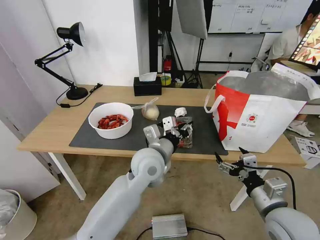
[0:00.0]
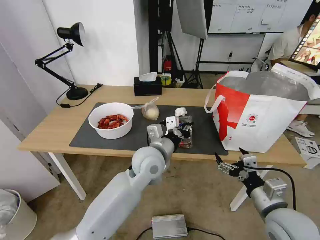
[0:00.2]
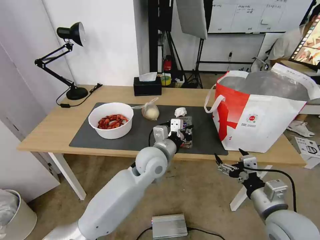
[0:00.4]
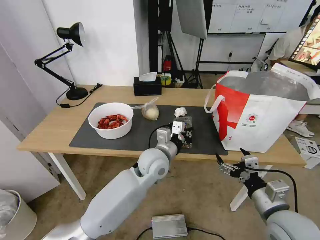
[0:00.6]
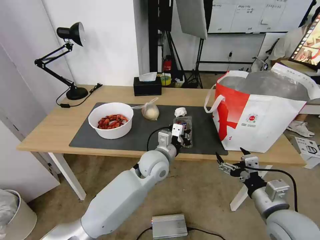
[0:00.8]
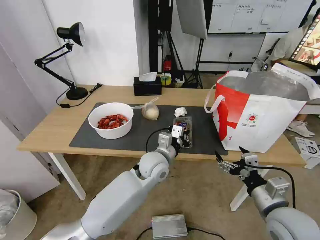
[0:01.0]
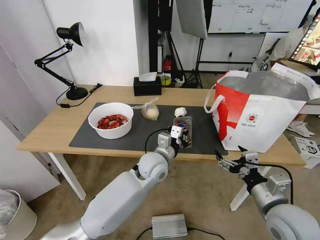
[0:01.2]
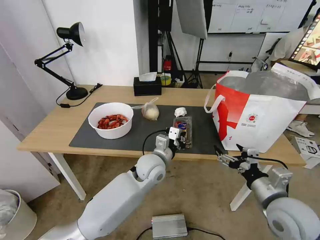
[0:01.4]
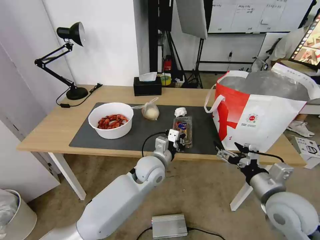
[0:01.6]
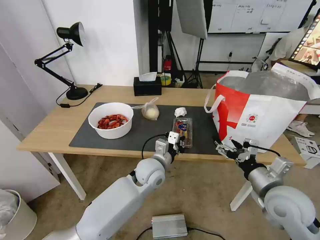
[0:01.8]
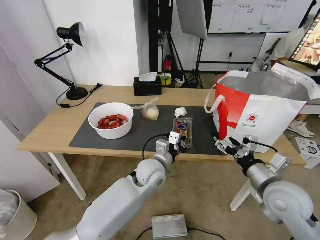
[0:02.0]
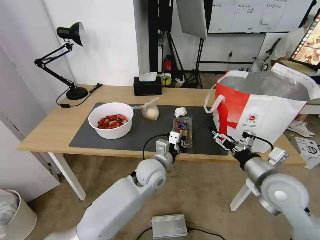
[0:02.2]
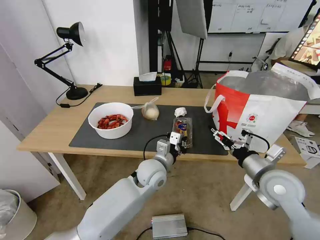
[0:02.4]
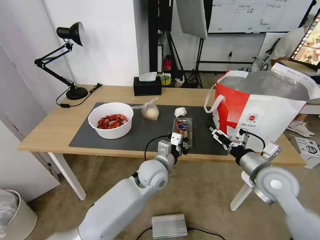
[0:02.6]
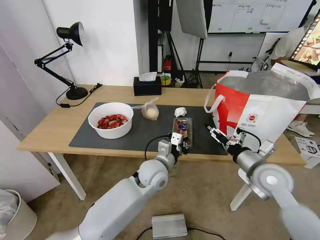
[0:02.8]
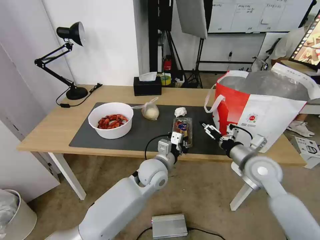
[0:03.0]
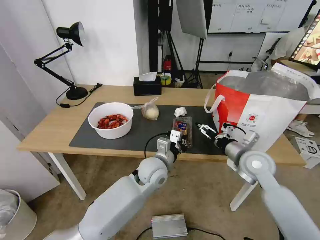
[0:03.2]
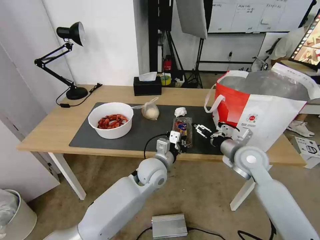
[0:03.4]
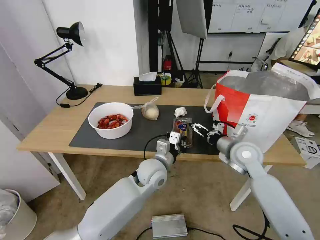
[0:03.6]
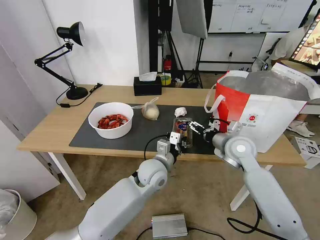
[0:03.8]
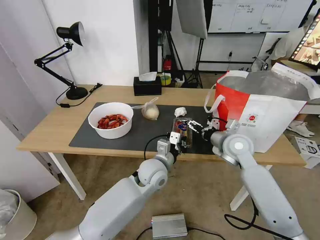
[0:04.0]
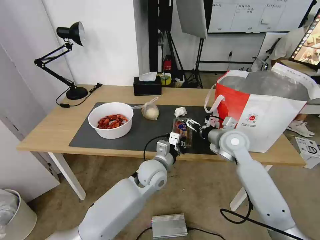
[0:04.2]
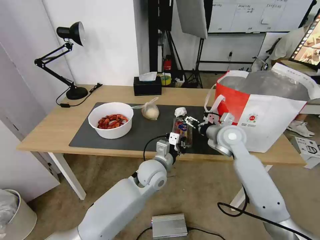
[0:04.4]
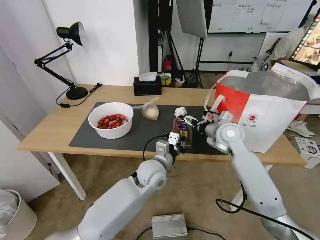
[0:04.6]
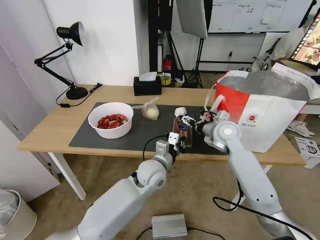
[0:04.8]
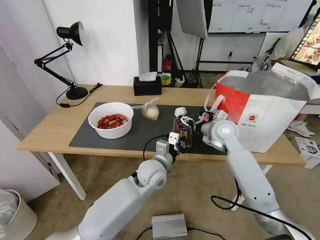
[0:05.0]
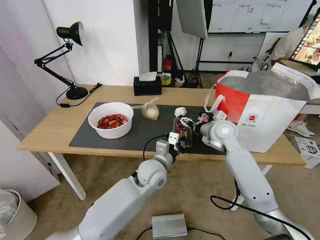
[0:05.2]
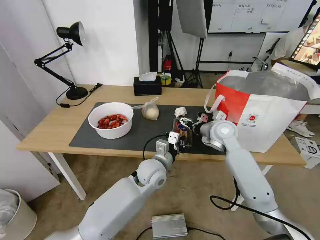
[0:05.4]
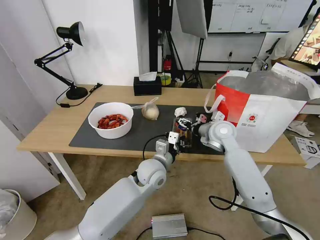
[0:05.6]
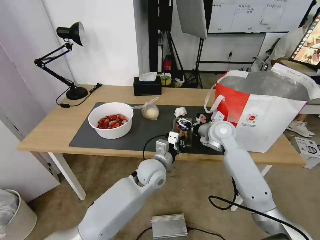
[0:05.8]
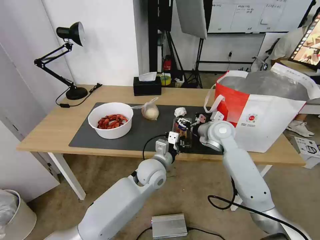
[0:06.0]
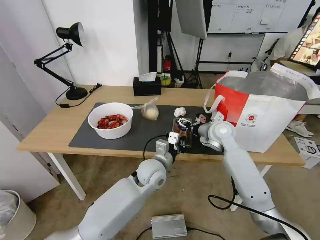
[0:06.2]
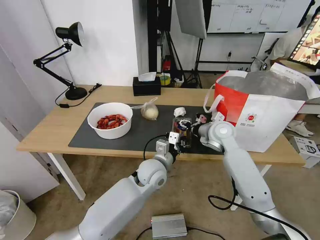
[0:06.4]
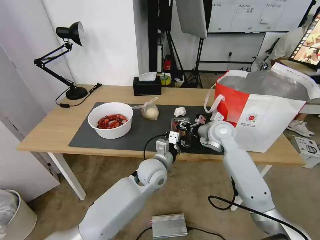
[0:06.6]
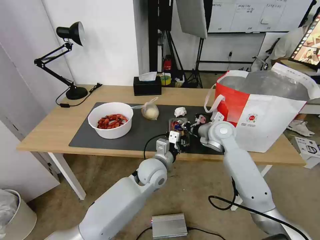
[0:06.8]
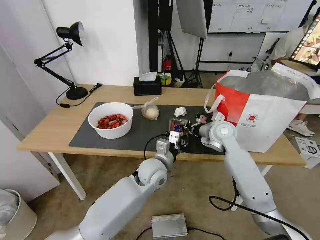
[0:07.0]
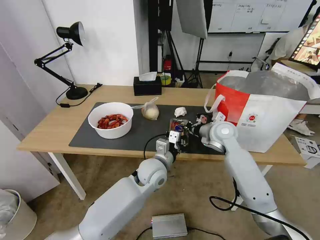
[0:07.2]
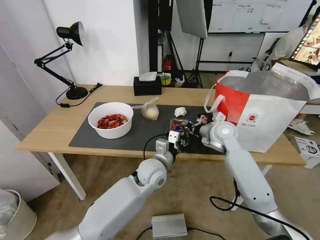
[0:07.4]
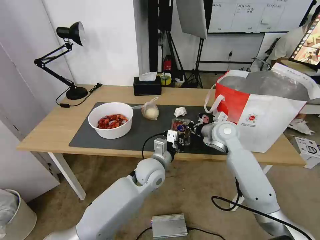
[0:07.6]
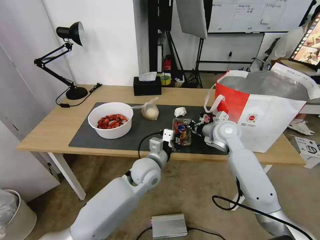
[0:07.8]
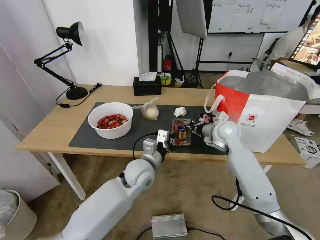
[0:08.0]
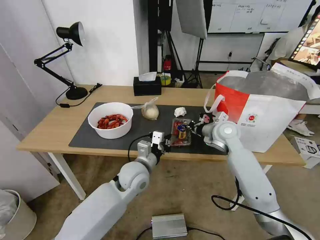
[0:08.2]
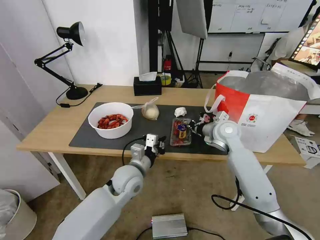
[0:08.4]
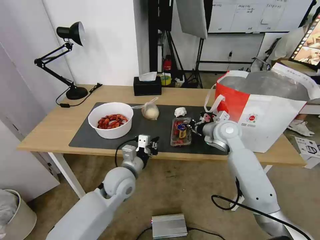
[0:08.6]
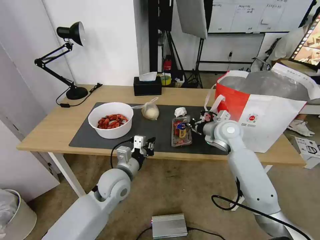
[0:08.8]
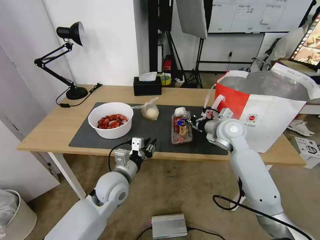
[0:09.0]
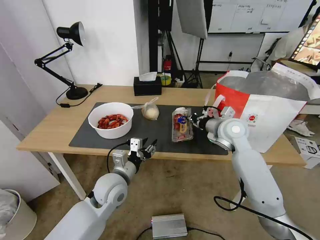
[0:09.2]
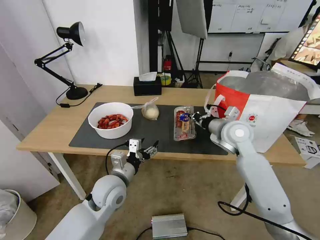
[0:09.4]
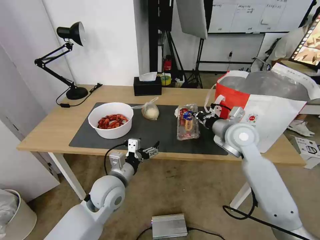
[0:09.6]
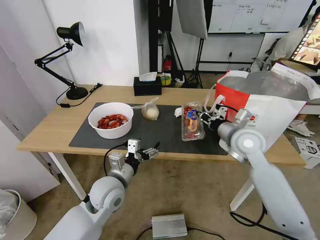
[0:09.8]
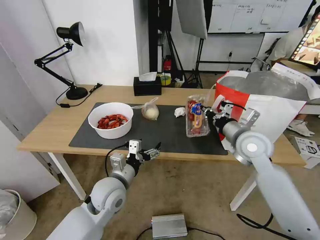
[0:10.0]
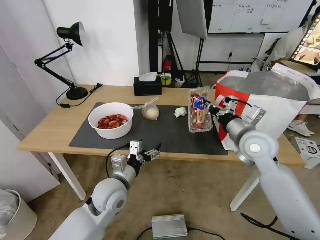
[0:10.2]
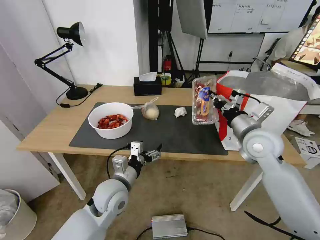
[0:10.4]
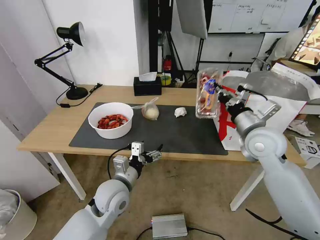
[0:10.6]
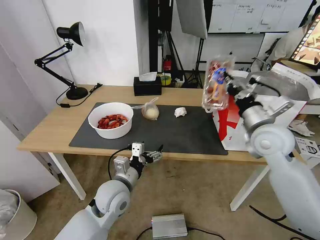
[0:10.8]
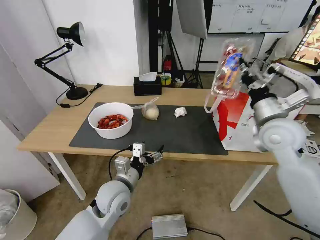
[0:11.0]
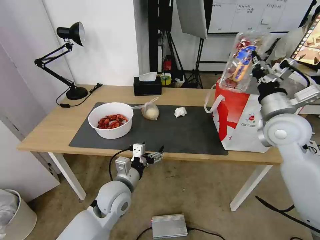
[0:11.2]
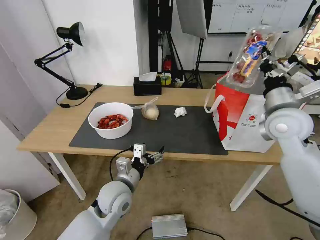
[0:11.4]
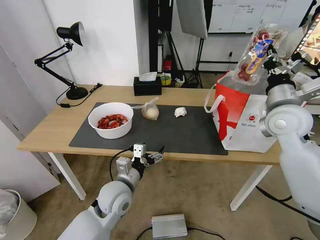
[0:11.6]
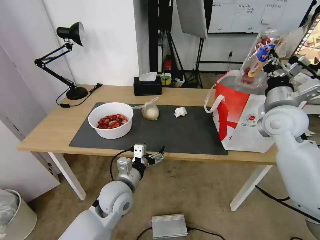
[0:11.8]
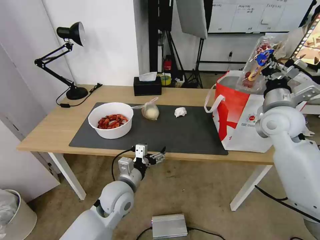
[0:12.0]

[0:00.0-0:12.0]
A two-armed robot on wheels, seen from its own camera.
Task of the whole recording: Pick up the trash from the table and place it into the takeout bag.
0:00.0 to 0:01.6: The left gripper shifts about 10 cm downward, and closes up.
0:01.6 to 0:03.0: The right gripper shifts about 10 cm forward.
0:03.0 to 0:04.4: The right gripper is displaced forward and to the left by about 15 cm.
0:04.4 to 0:06.0: The grippers move only a little.
0:06.0 to 0:07.6: The right gripper closes up.
0:07.6 to 0:09.0: The left gripper shifts about 10 cm to the left.
0:09.0 to 0:10.4: The right gripper is displaced backward by approximately 10 cm; the left gripper opens its fingers.
0:10.4 to 0:12.0: The right gripper heads to the right, covering roughly 5 cm.

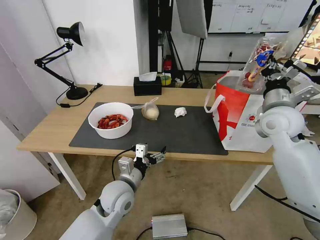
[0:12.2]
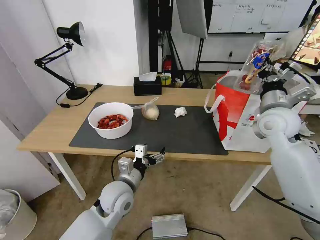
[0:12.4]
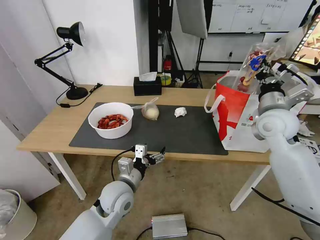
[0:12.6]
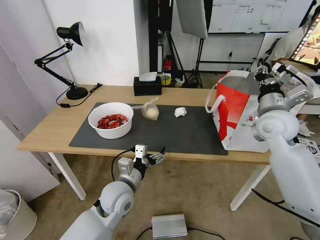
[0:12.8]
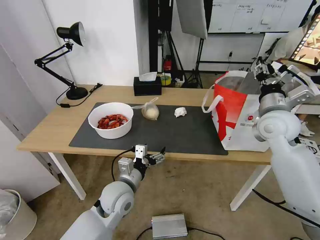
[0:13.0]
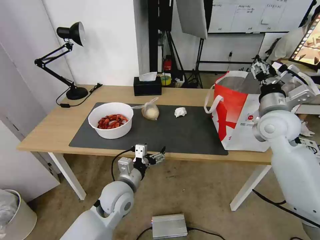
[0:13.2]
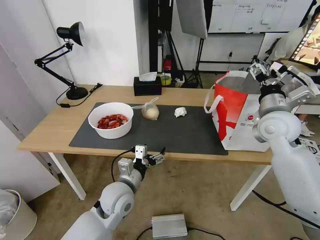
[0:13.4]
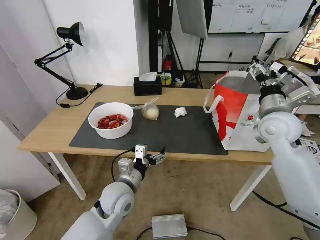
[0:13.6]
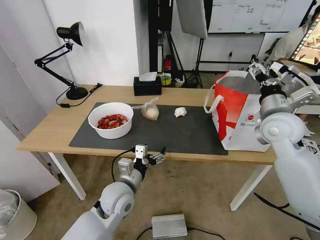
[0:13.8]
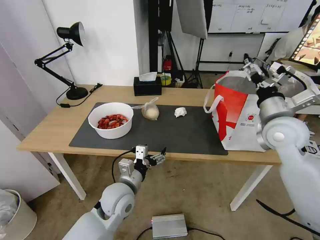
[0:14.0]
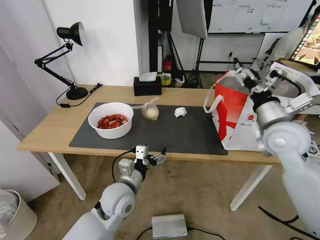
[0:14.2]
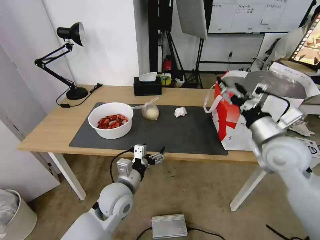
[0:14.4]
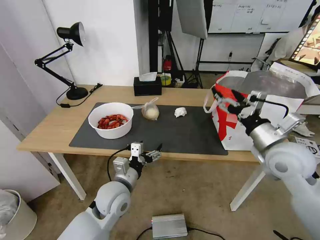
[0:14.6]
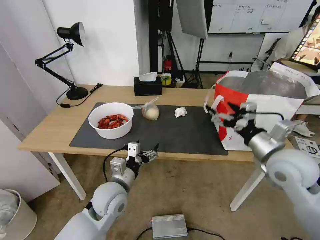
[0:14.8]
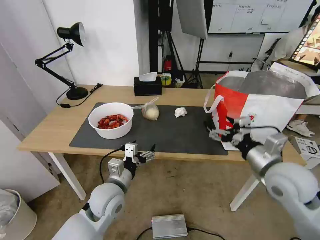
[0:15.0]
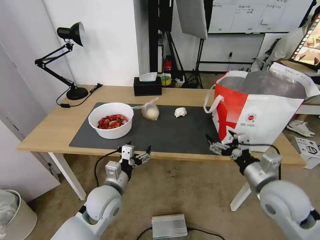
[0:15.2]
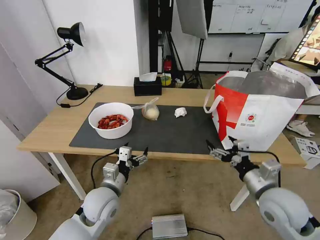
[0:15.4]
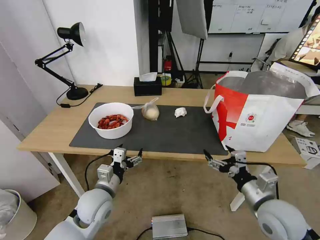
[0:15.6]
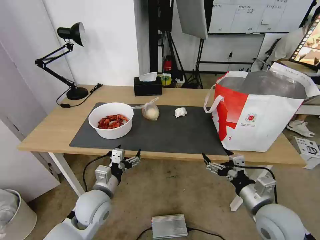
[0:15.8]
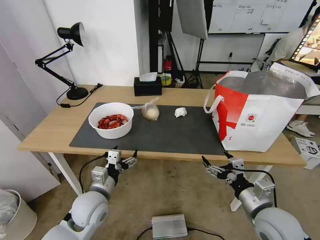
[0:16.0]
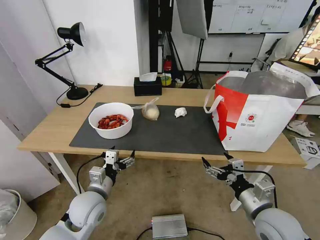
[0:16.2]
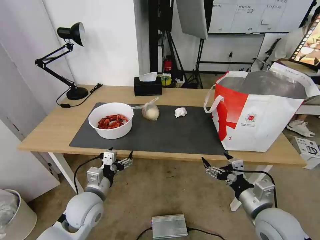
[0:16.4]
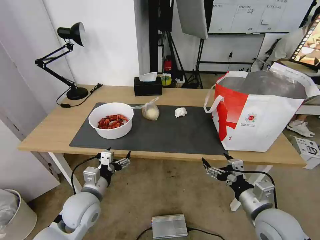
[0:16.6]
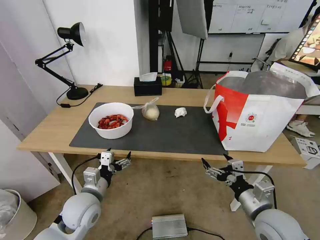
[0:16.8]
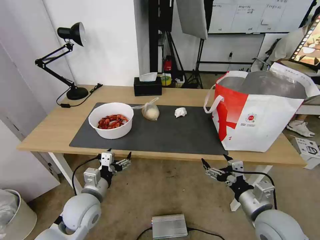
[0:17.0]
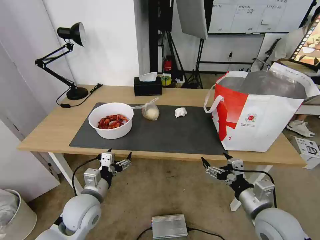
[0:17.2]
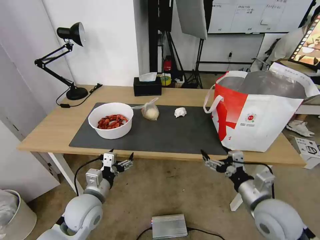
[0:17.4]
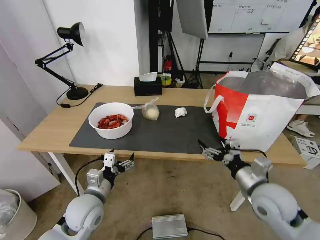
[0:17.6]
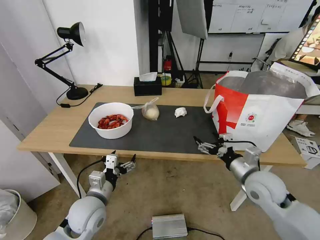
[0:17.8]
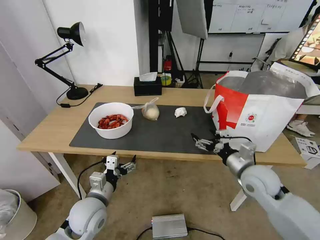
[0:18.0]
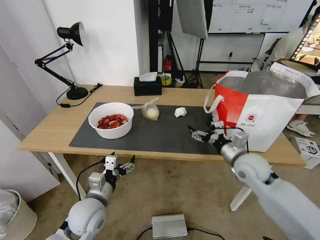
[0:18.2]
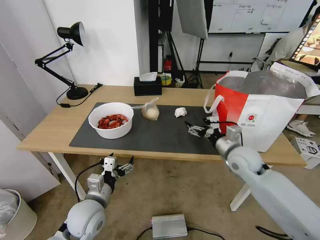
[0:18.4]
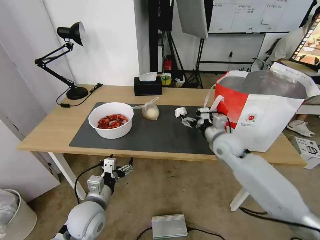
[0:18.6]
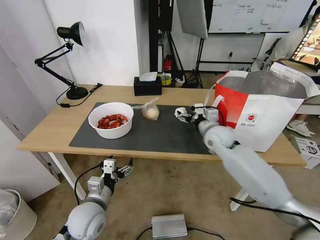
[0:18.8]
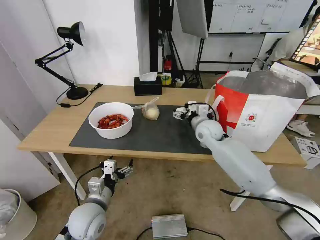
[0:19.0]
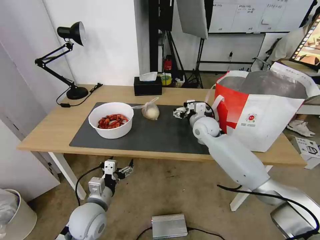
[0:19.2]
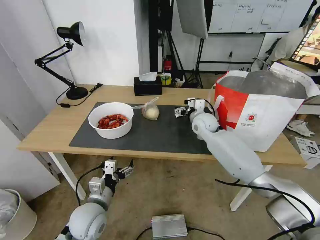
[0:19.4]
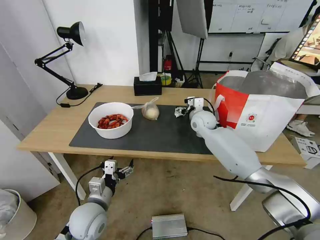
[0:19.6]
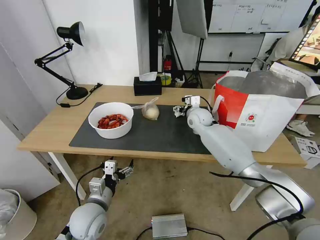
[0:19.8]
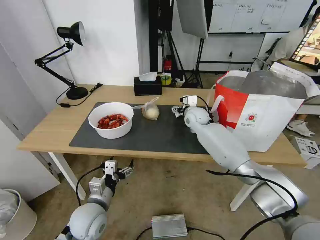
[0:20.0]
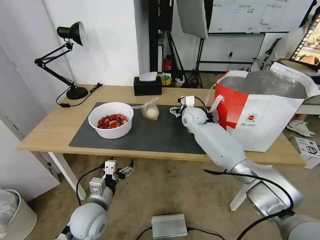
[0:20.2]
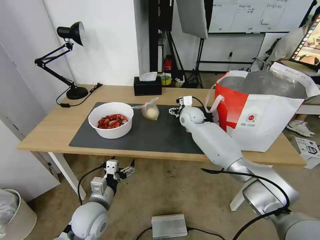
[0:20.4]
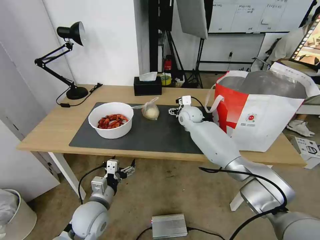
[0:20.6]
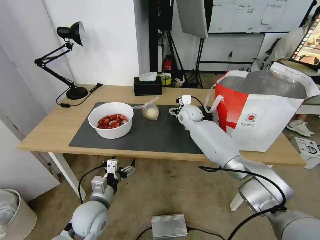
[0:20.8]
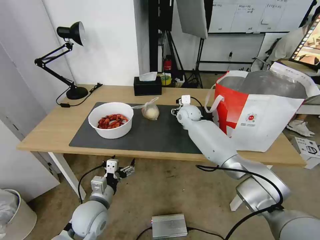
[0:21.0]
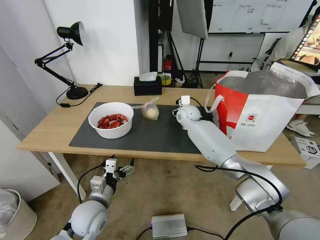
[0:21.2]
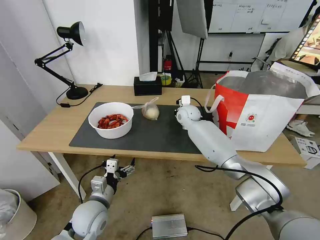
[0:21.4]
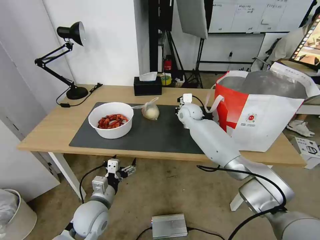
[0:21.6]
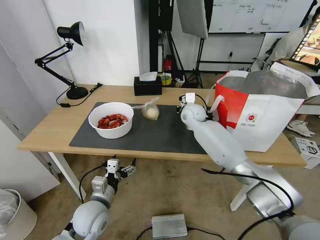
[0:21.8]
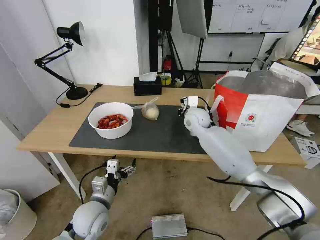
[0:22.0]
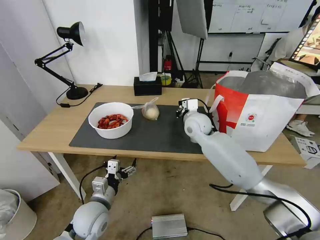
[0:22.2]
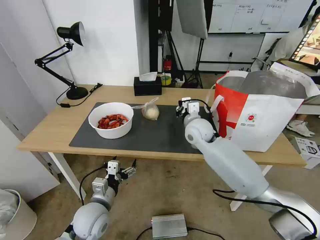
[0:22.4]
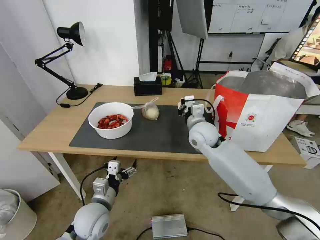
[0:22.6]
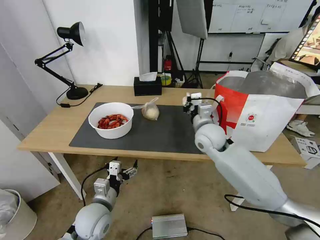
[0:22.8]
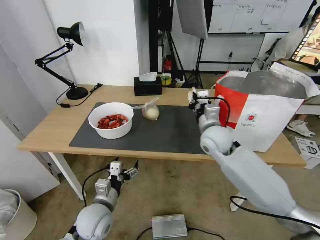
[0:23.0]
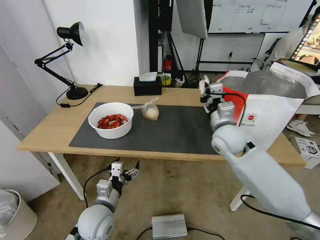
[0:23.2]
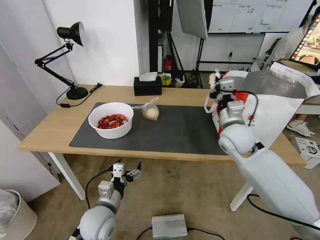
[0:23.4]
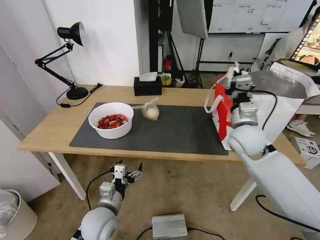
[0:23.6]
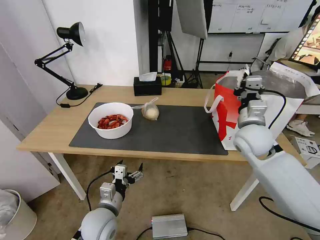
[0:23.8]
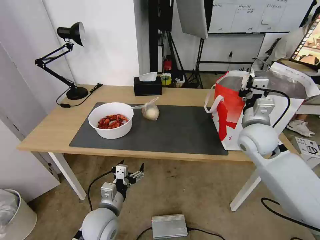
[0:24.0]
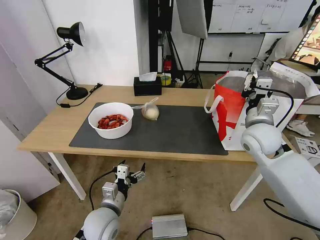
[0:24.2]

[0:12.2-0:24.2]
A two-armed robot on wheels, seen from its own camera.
Task of the whole recording: Pick up the trash from the table and place it into the takeout bag.
0:12.2 to 0:13.8: The right gripper opens up.
0:13.8 to 0:15.2: The right gripper shifts roughly 15 cm backward and downward.
0:15.2 to 0:16.6: The left gripper moves to the left, approximately 5 cm, while the right gripper moves downward and backward, roughly 10 cm.
0:16.6 to 0:18.2: The right gripper goes about 15 cm forward.
0:18.2 to 0:19.8: The right gripper is displaced forward and to the left by roughly 30 cm.
0:19.8 to 0:21.2: The right gripper moves about 5 cm, and closes.
0:21.2 to 0:22.6: The right gripper travels backward by approximately 15 cm, and closes up.
0:22.6 to 0:24.2: The right gripper shifts about 15 cm to the right.
